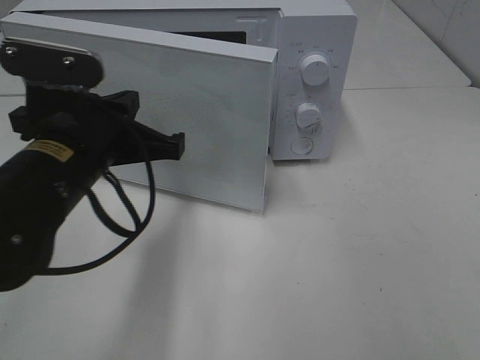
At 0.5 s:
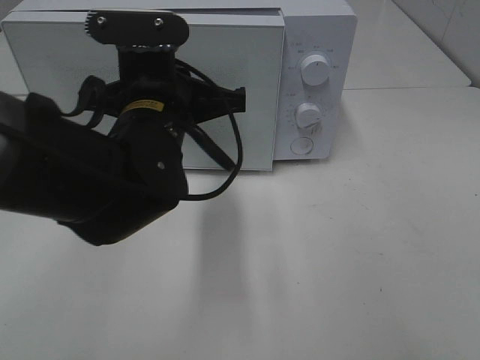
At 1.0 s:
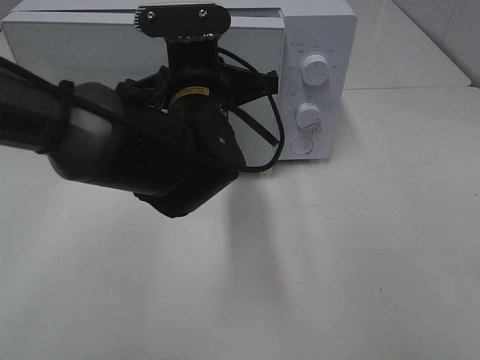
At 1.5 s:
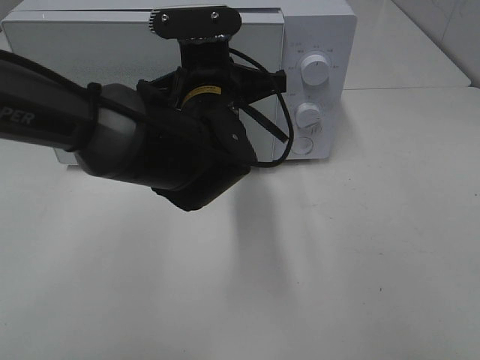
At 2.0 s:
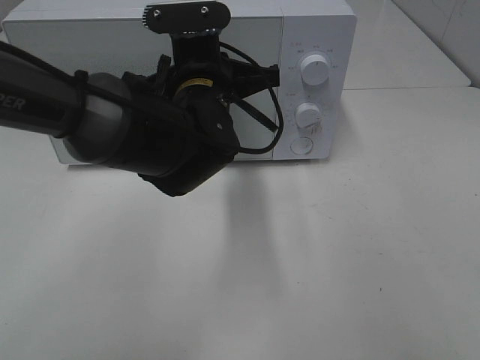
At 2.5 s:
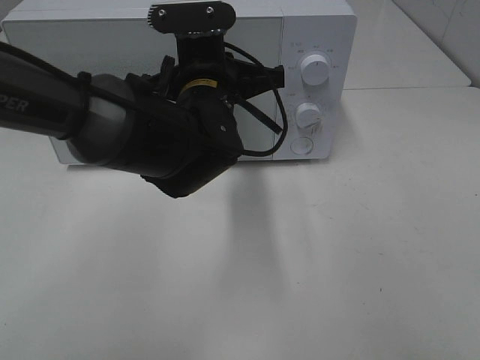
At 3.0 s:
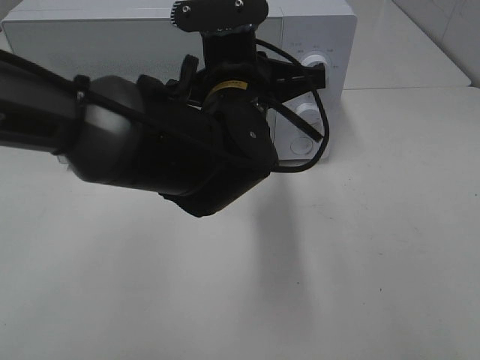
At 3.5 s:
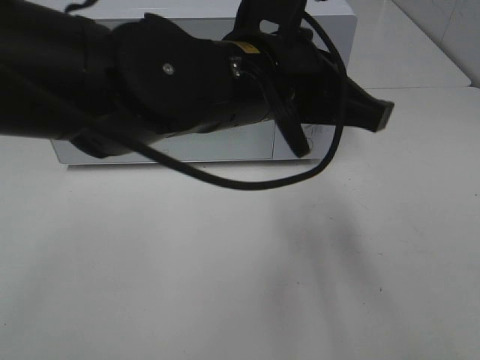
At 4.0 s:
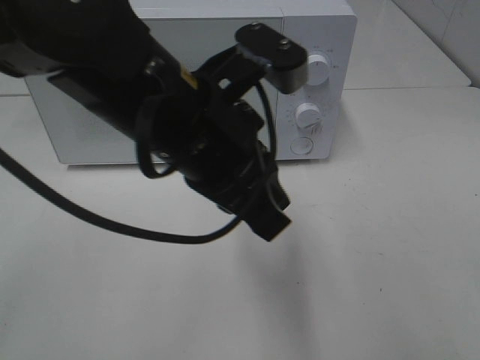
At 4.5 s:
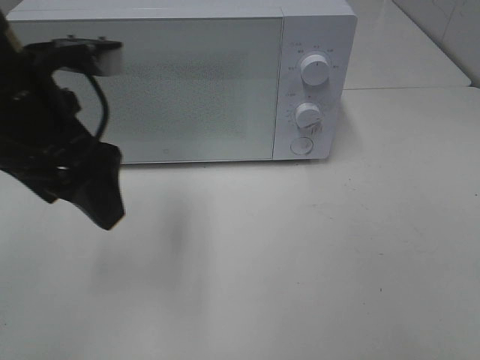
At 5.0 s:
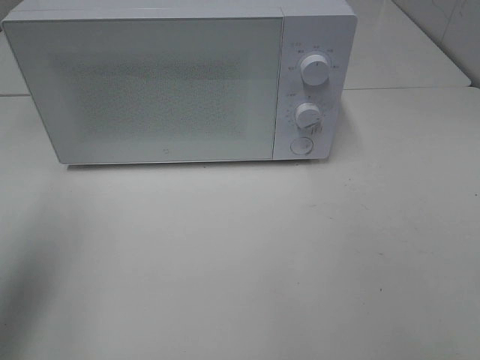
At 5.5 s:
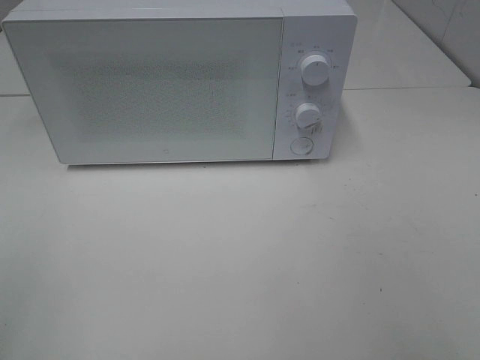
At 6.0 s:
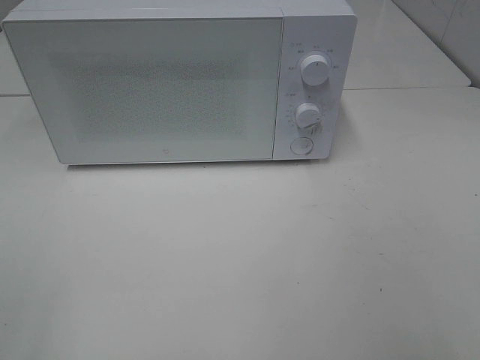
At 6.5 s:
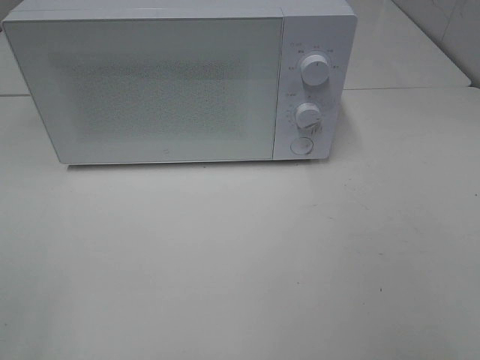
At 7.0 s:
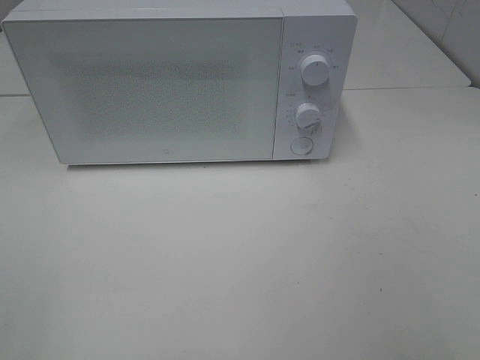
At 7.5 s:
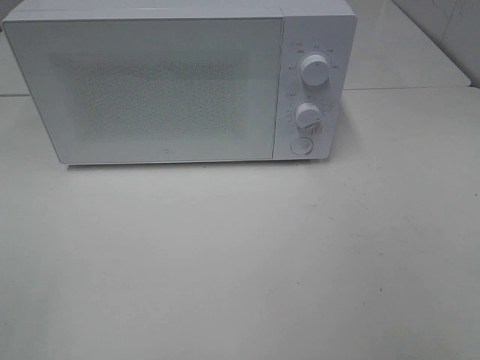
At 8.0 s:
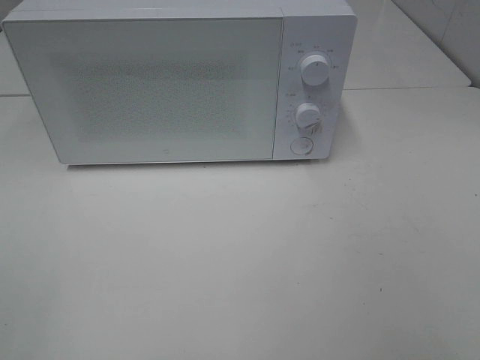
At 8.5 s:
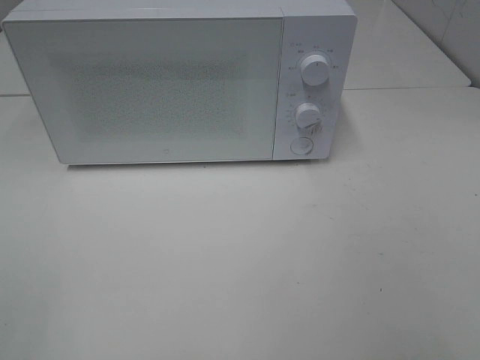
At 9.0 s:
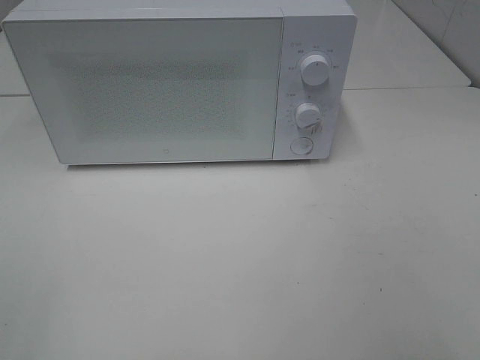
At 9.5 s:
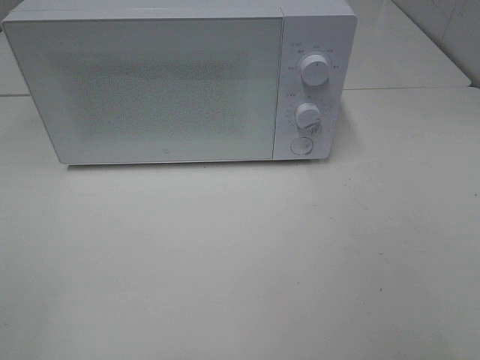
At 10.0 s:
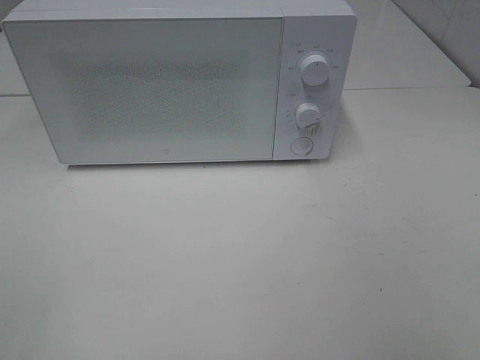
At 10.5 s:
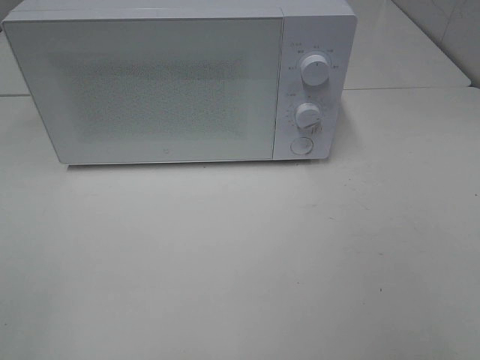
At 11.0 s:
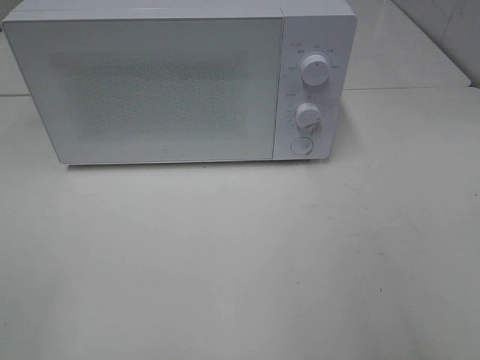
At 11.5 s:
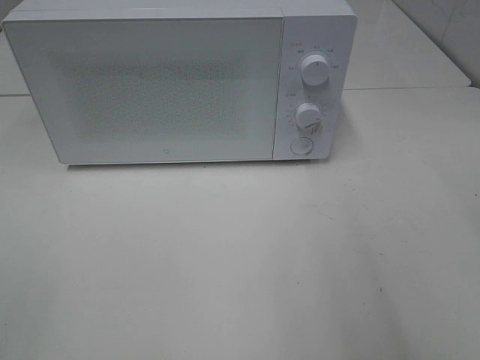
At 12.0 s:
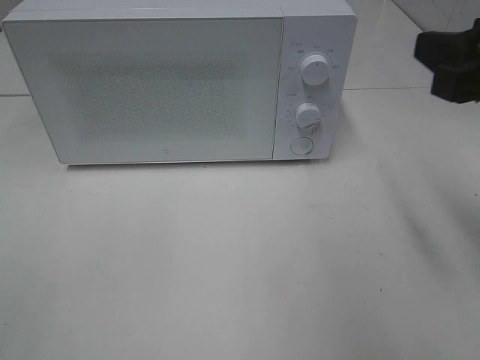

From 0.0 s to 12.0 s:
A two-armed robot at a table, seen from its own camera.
Task of the whole recording: Heat Sandwich.
Step, from 0.0 s to 3.0 s: Left hand: close the microwave door.
From 0.0 s to 2.0 s: The left gripper moves to the right and forward, roughly 15 cm.
From 2.0 s to 4.0 s: The left gripper travels backward and upward by approximately 15 cm.
From 4.0 s to 6.0 s: The left gripper is displaced to the left and backward by about 35 cm, and opens.
From 6.0 s to 10.0 s: The two grippers keep their place.
From 10.0 s to 12.0 s: The right gripper goes some 20 cm forward.

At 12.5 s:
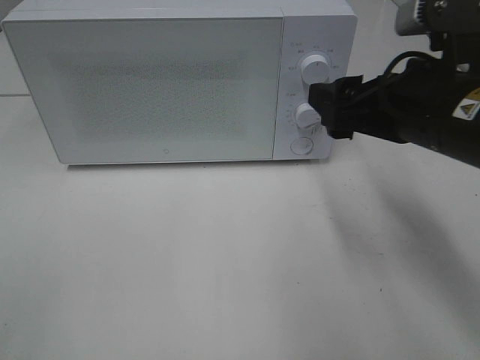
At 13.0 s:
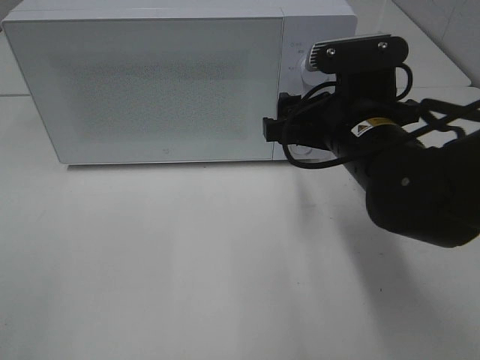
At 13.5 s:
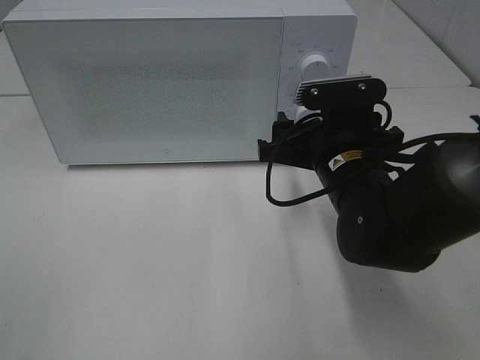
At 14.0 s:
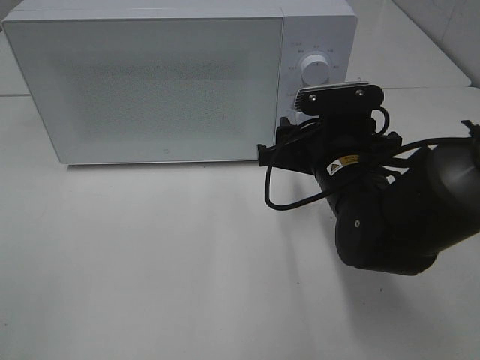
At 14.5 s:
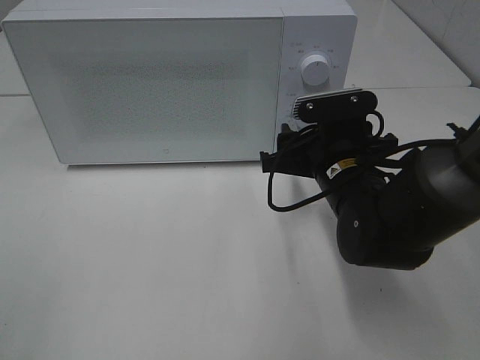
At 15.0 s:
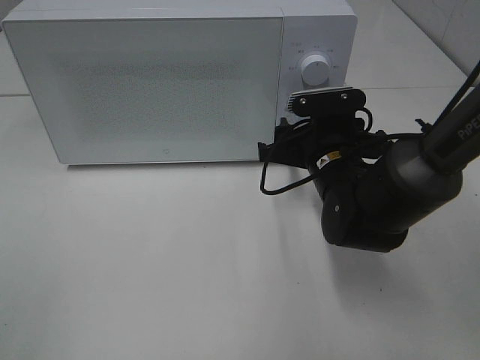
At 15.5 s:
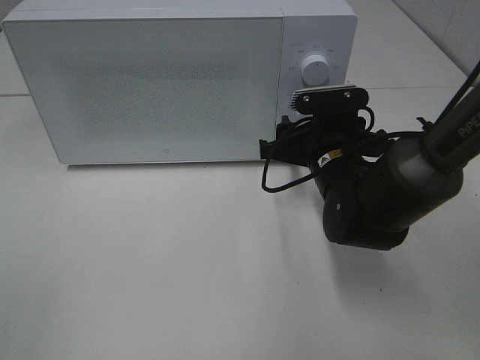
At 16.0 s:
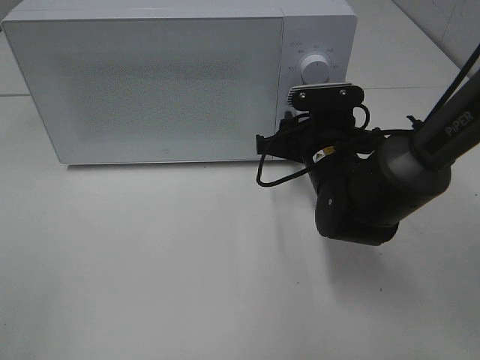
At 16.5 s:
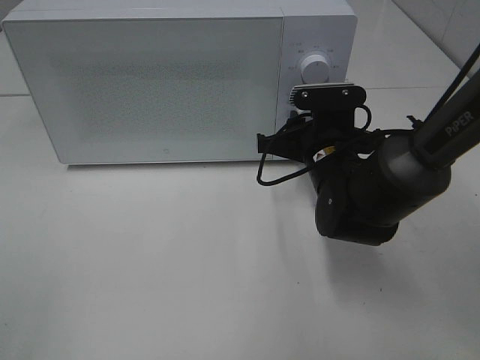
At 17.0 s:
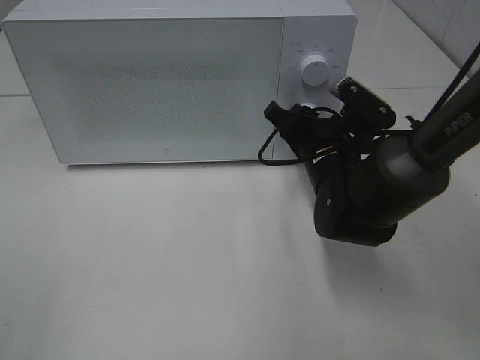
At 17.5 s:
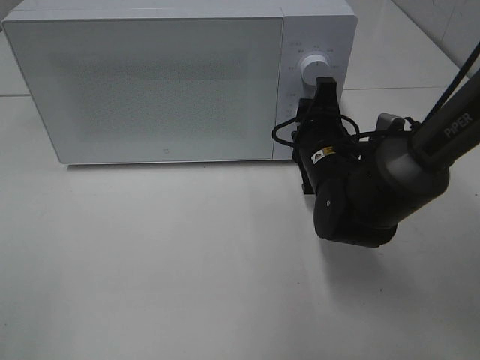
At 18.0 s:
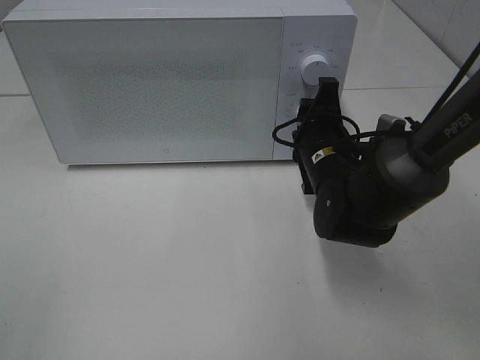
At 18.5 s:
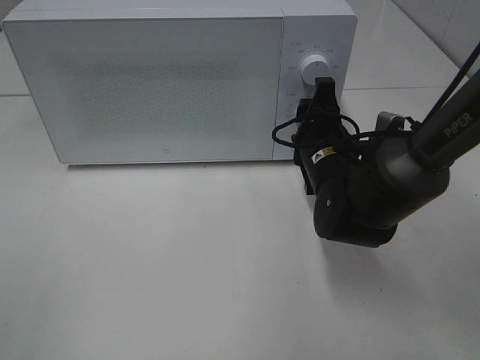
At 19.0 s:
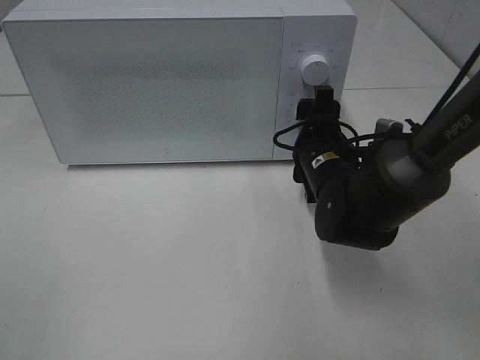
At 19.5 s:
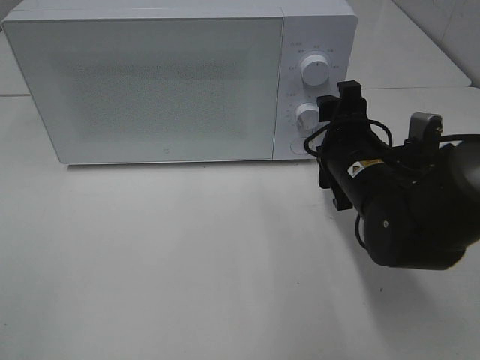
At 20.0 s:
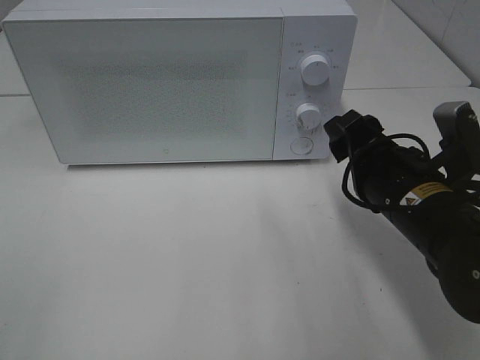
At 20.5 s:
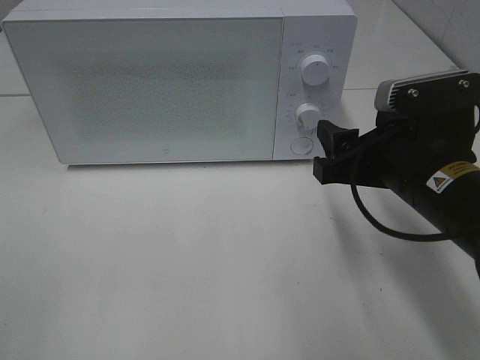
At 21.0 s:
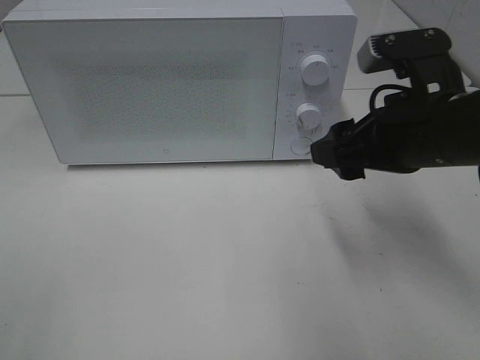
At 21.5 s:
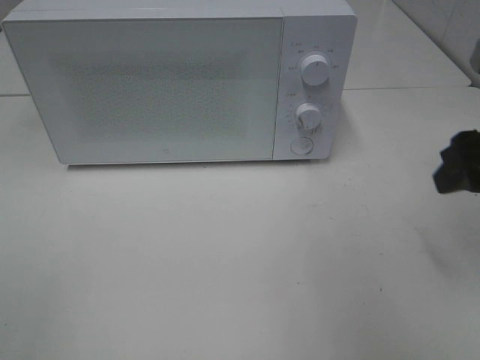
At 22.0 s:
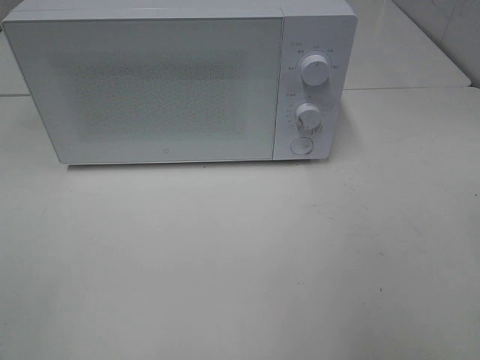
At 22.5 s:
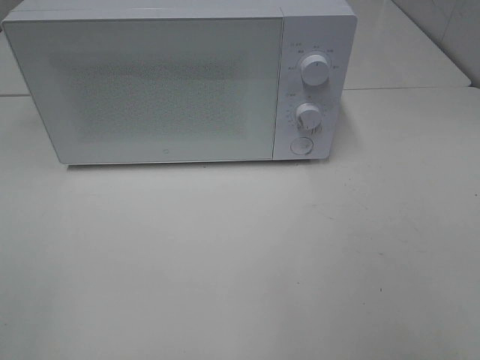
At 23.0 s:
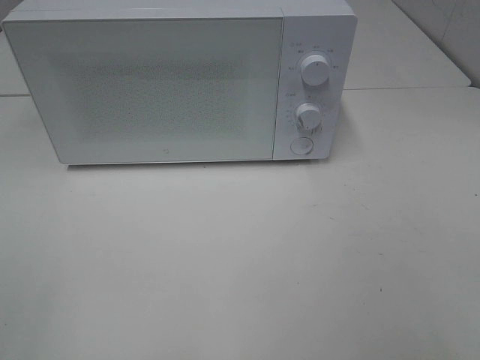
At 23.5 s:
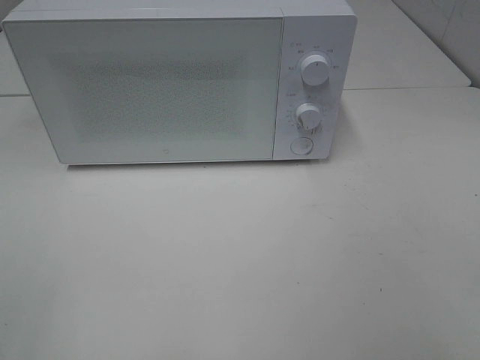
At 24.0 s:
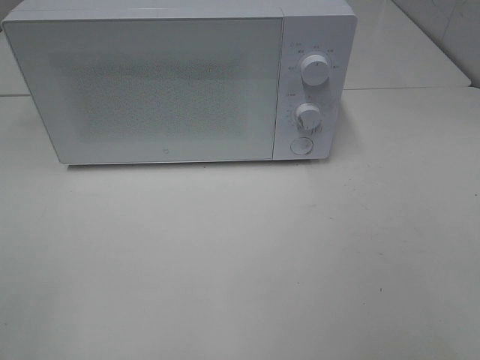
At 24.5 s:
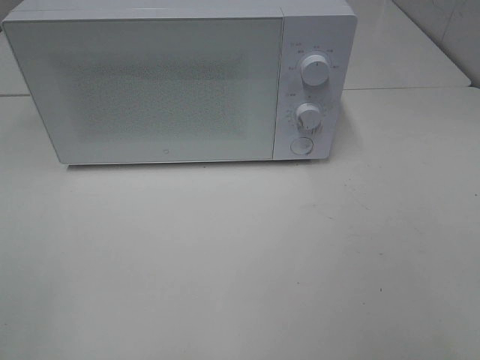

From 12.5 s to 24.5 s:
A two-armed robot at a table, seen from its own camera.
Task of the whole recording: Heat Sandwich.
Step, from 12.5 s to 19.0 s: Right hand: twist timer button.
From 12.5 s to 14.5 s: The right gripper goes some 10 cm downward and forward.
From 14.5 s to 16.5 s: The right gripper closes up.
From 18.5 s to 20.5 s: The right gripper travels backward, upward and to the right by some 15 cm.
From 20.5 s to 22.5 s: The right gripper goes some 25 cm backward, to the right and upward.

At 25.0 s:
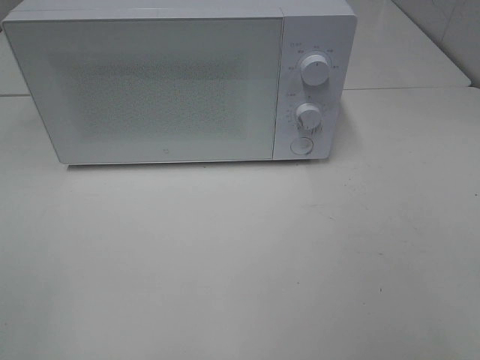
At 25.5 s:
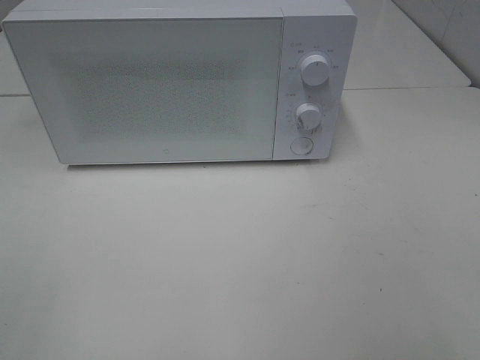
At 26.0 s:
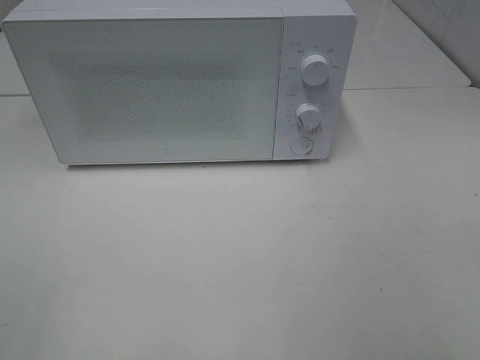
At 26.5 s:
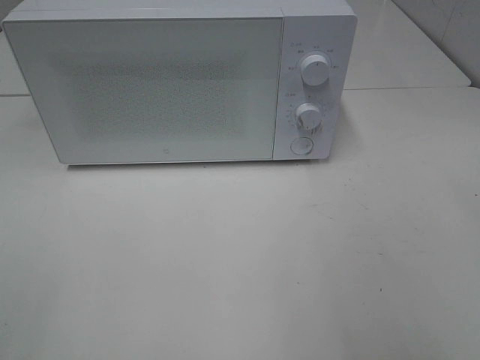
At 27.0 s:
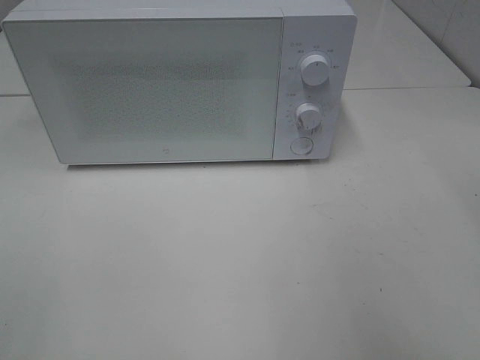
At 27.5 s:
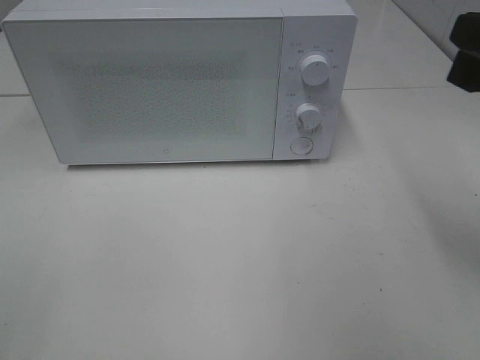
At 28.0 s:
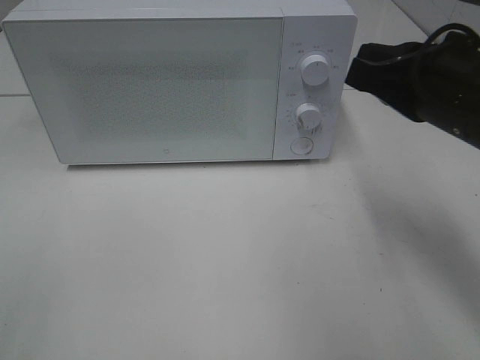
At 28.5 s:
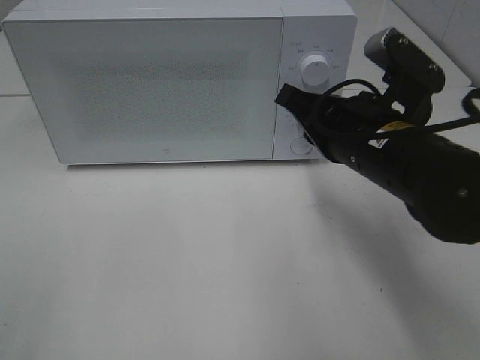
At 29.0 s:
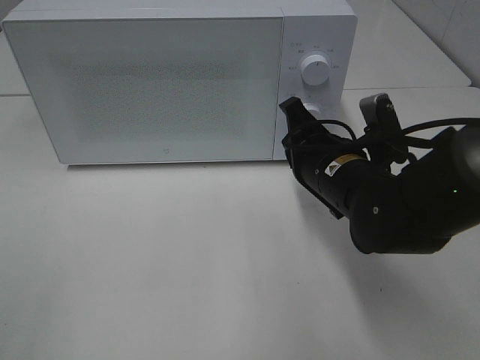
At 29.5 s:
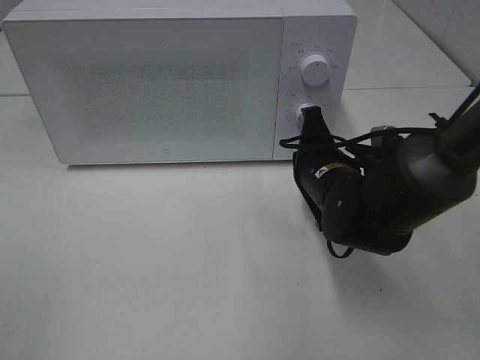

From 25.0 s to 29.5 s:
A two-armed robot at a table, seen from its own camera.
Task of the whole recording: Heat Sandwich.
From 27.0 s to 29.5 s: The right gripper goes approximately 30 cm downward, forward and to the left.
